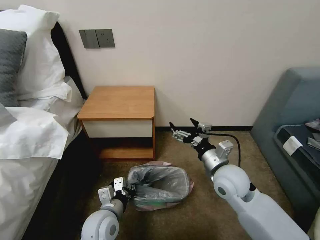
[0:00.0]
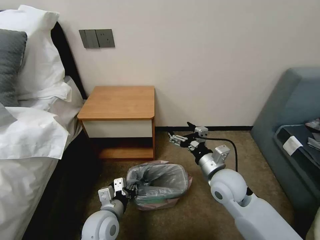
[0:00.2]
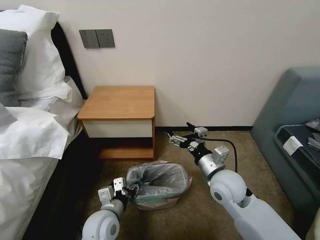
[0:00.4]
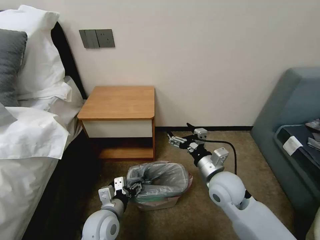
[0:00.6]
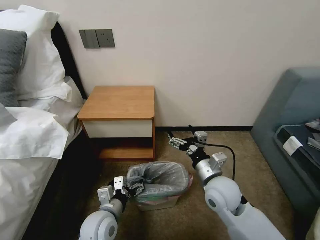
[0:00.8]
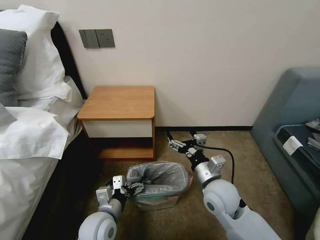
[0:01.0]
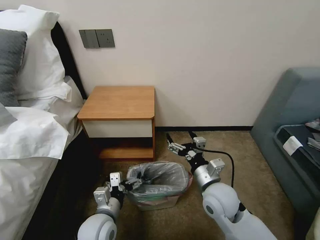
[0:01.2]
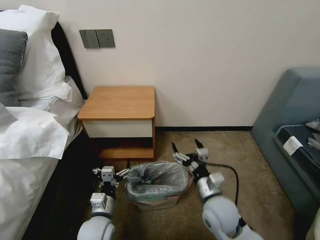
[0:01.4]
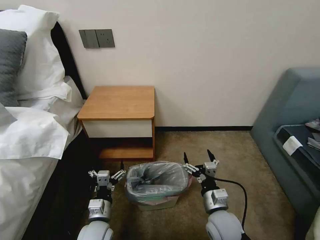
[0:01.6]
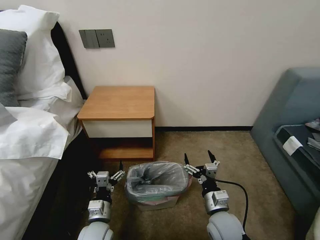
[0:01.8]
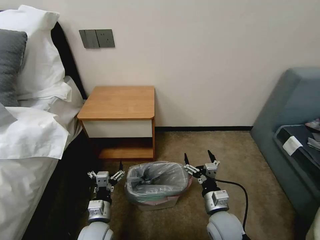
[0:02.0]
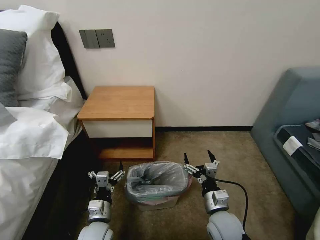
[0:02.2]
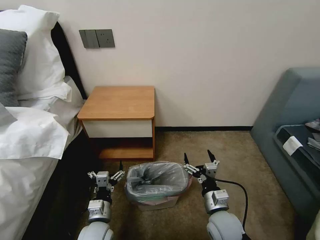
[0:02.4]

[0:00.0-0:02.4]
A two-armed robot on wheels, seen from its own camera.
Task of the whole recording: Pick up the garbage bag from the table and place it over the trash can.
0:00.0 to 0:01.2: The left gripper opens its fingers, while the right gripper moves approximately 5 cm.
0:01.2 to 0:02.4: The right gripper is displaced downward and backward by approximately 10 cm. The left gripper heads downward, covering approximately 5 cm.

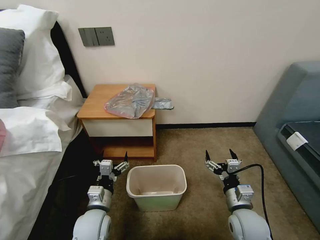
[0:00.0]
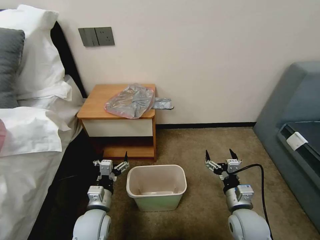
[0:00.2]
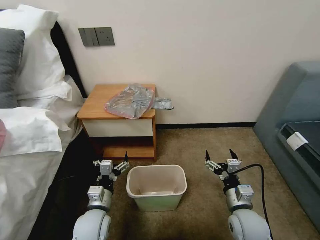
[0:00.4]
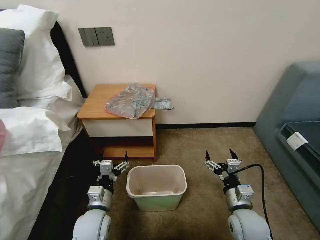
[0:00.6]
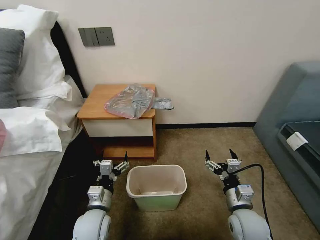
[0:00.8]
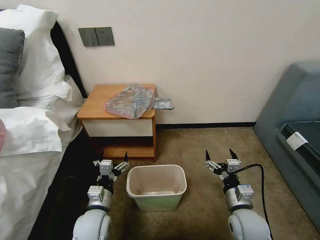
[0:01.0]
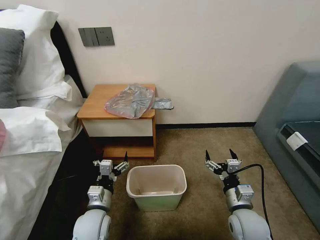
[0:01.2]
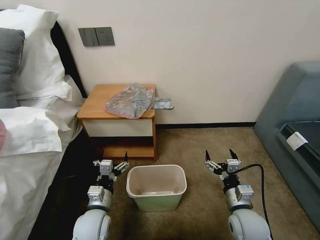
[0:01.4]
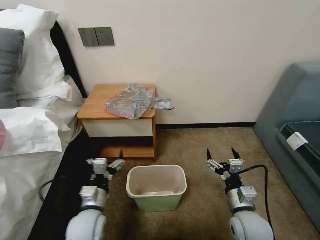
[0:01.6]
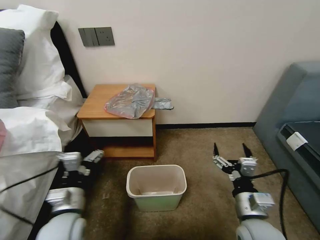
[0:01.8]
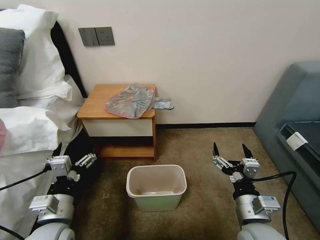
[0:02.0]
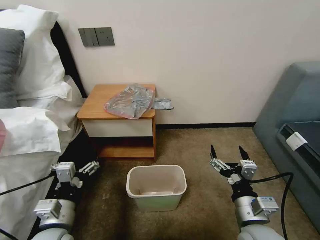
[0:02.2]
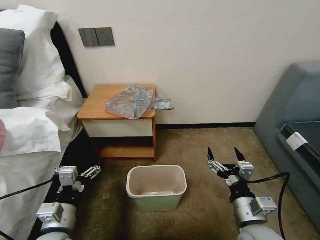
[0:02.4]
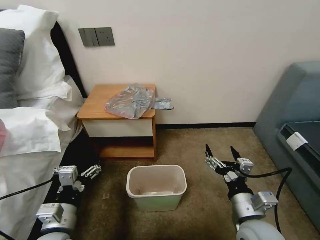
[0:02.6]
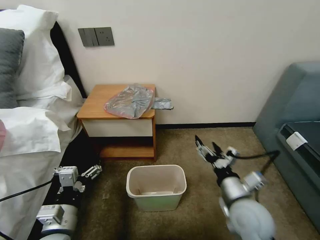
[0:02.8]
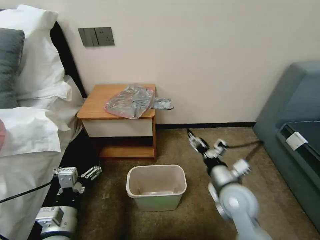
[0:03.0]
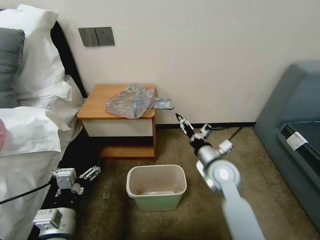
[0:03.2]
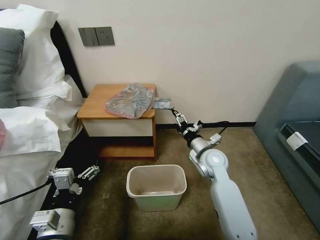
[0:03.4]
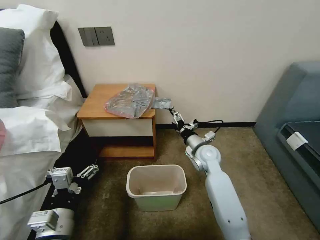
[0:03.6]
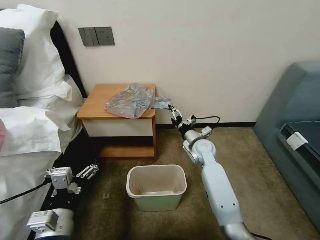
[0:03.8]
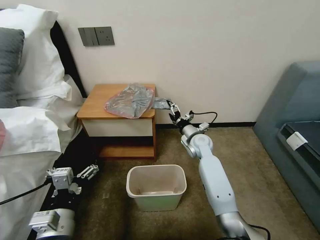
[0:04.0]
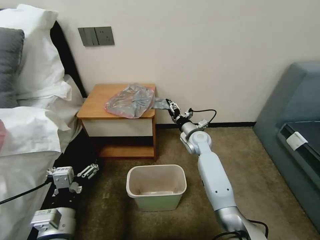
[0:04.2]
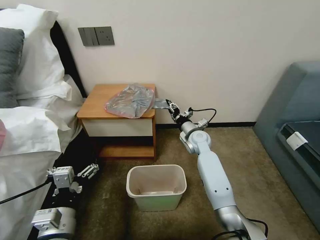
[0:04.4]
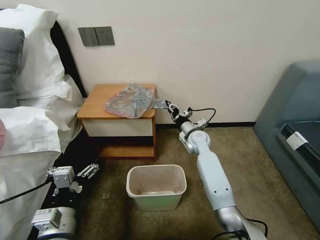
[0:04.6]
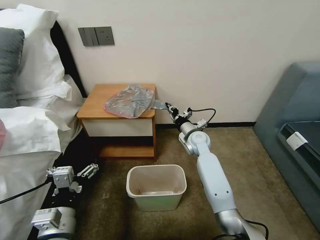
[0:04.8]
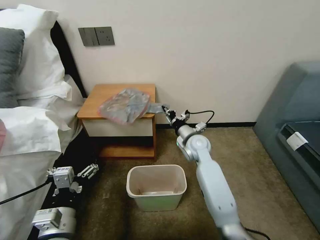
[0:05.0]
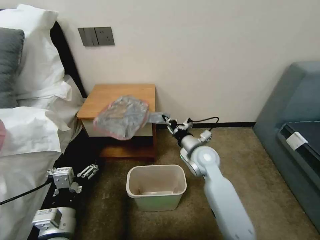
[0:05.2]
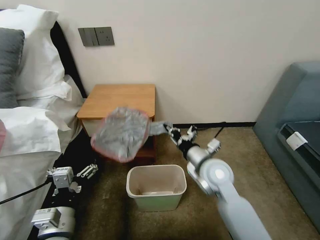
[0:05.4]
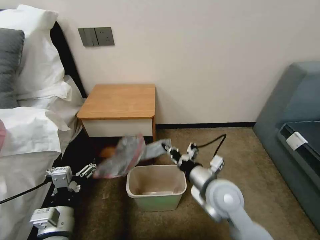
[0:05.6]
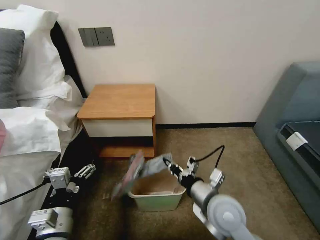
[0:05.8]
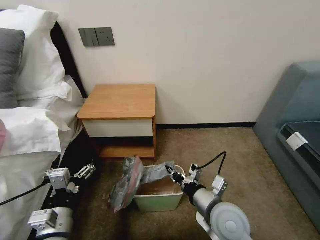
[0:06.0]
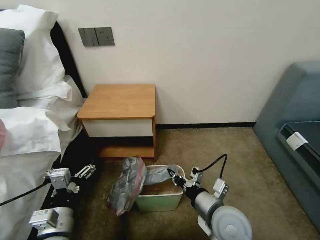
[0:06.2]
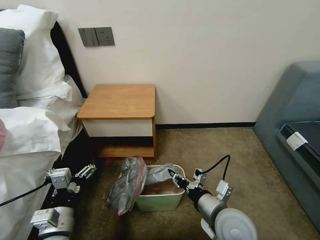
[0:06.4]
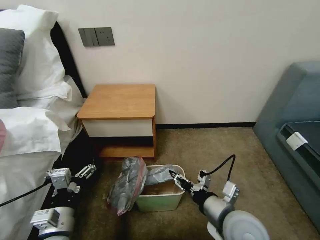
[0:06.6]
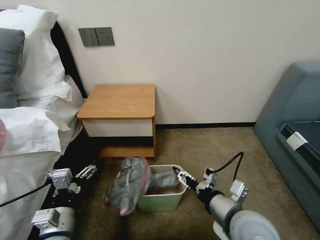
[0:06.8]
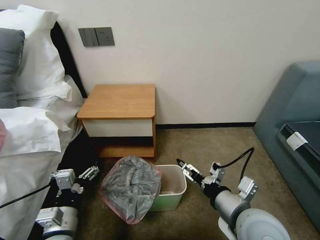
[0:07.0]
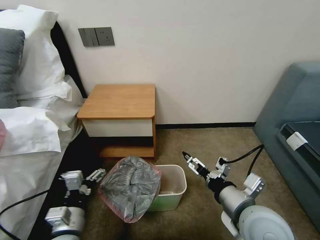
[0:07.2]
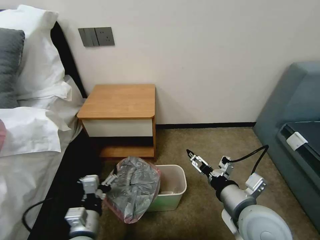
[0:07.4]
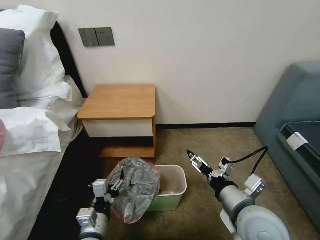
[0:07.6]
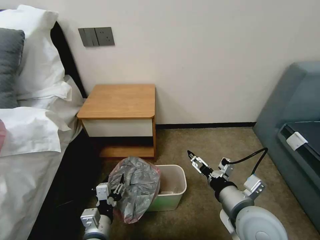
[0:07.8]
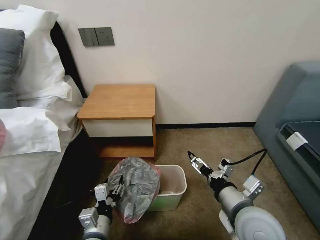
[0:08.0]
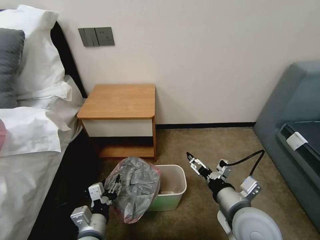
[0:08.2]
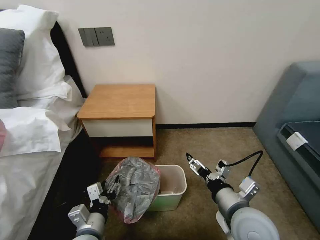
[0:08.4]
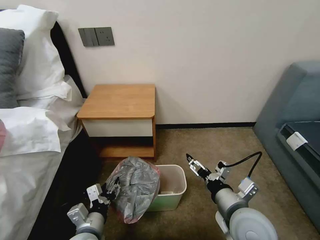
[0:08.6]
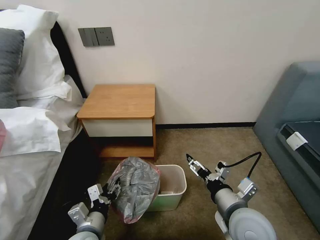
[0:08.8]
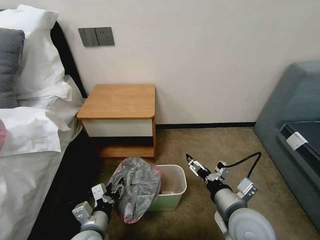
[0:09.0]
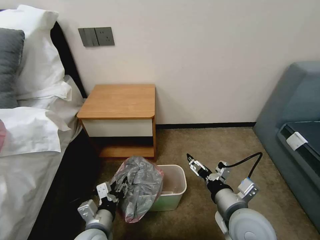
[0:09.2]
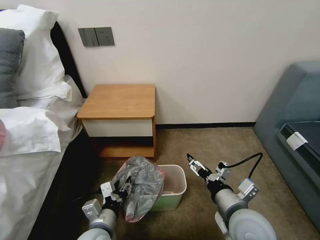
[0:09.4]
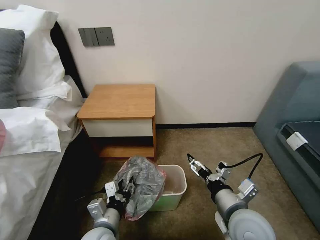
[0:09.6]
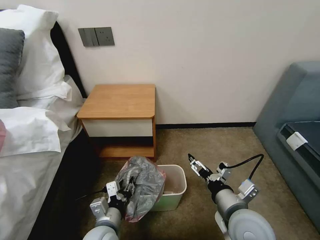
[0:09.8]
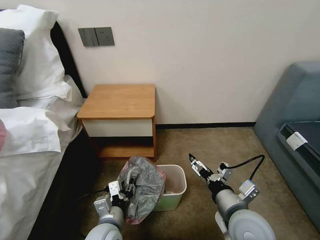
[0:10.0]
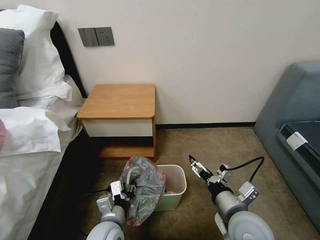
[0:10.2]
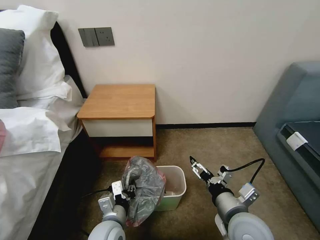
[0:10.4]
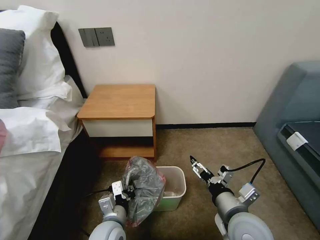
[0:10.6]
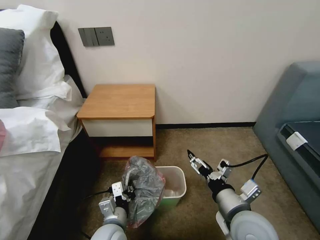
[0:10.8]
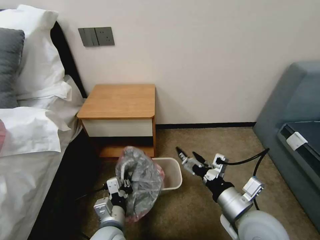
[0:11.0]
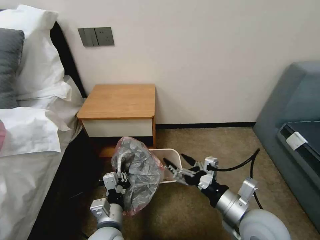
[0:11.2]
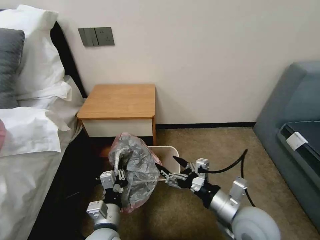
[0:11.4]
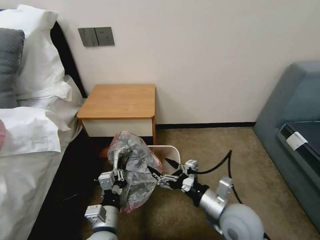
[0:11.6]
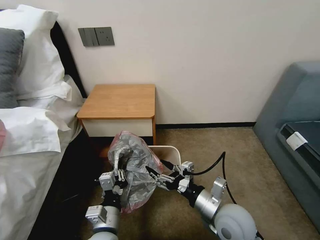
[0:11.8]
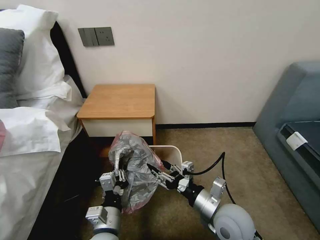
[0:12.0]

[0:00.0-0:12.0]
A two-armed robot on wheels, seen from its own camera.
Task of the whole recording: Pick up the garbage bag from the table and place it over the trash can.
0:01.6 to 0:03.0: The right gripper shifts some 10 cm forward and upward. The left gripper heads backward and upward, covering about 10 cm.
0:03.0 to 0:04.4: The right gripper travels forward by some 25 cm, and closes.
0:04.4 to 0:06.0: The right gripper moves backward, some 30 cm, and closes its fingers.
0:06.0 to 0:07.6: The right gripper moves upward, roughly 5 cm, and opens its fingers, while the left gripper heads to the right and downward, covering about 10 cm.
0:09.0 to 0:10.4: The left gripper heads to the right, covering approximately 5 cm.
0:10.4 to 0:12.0: The right gripper closes up.

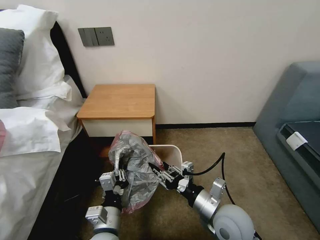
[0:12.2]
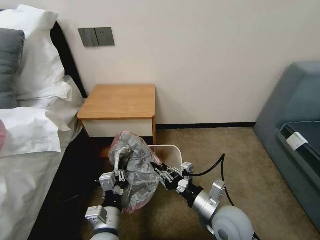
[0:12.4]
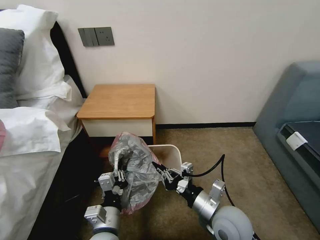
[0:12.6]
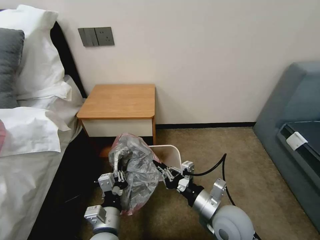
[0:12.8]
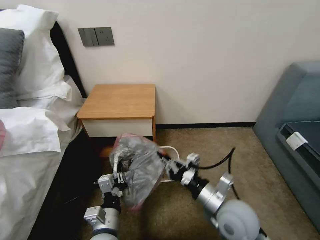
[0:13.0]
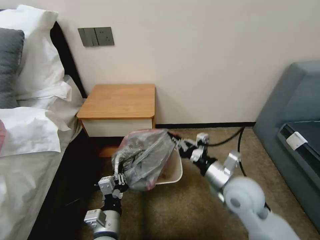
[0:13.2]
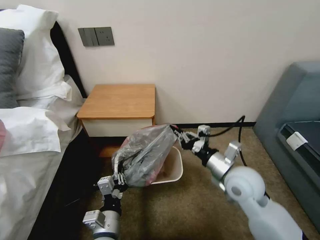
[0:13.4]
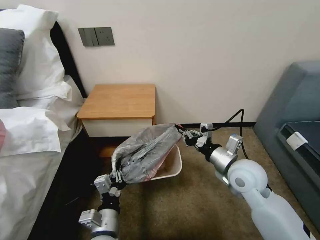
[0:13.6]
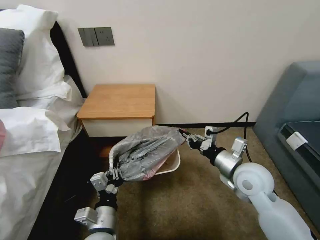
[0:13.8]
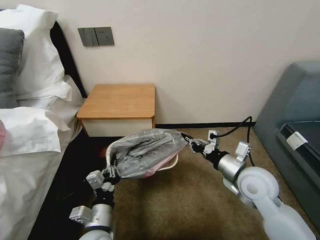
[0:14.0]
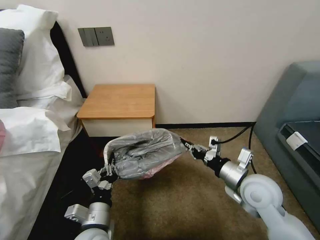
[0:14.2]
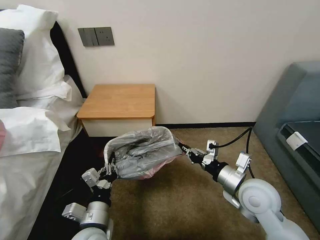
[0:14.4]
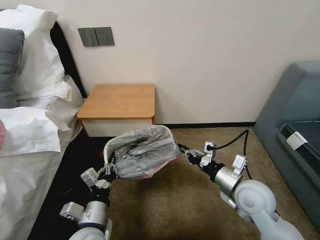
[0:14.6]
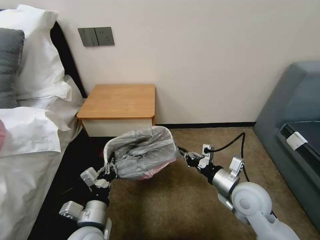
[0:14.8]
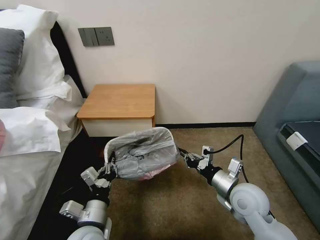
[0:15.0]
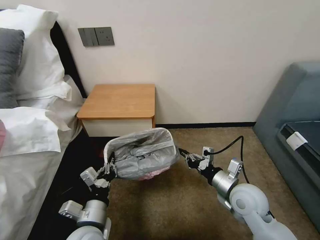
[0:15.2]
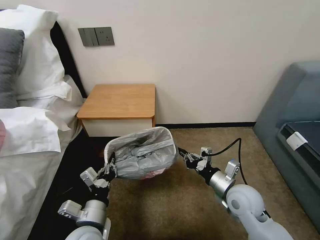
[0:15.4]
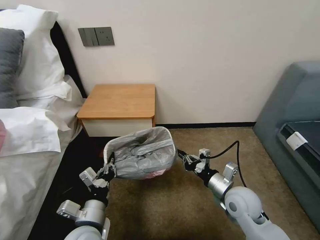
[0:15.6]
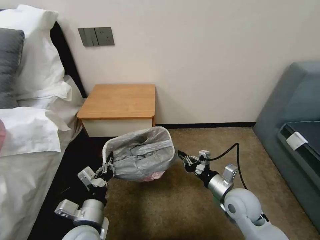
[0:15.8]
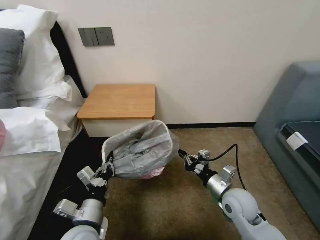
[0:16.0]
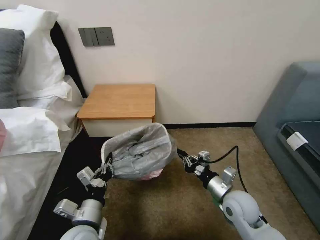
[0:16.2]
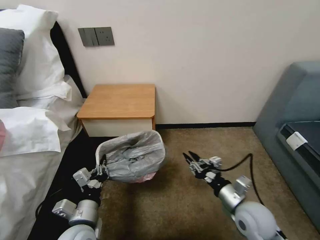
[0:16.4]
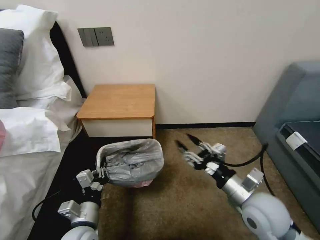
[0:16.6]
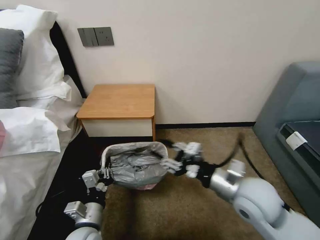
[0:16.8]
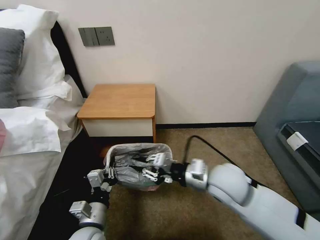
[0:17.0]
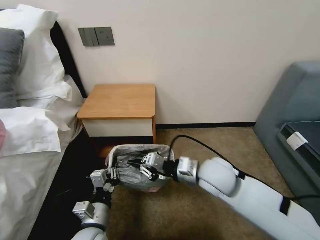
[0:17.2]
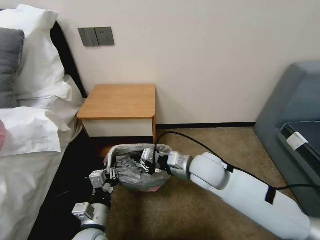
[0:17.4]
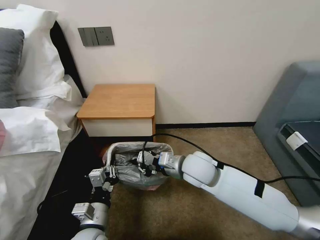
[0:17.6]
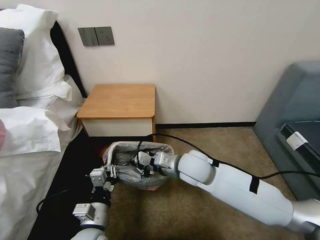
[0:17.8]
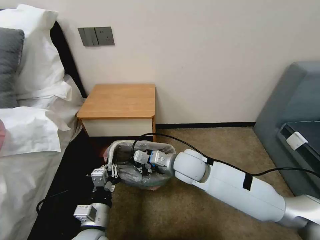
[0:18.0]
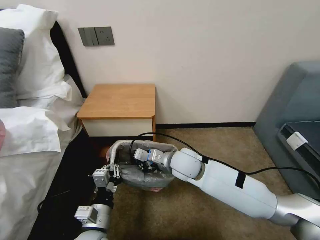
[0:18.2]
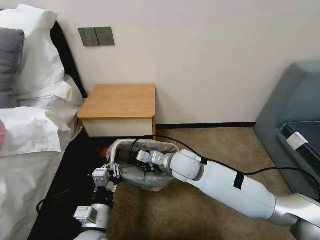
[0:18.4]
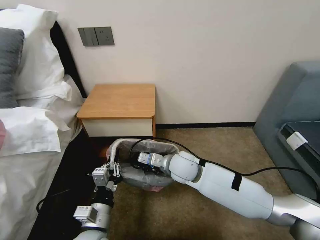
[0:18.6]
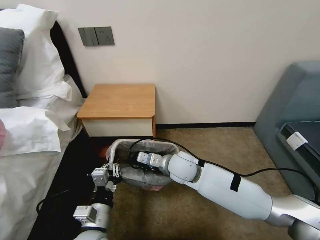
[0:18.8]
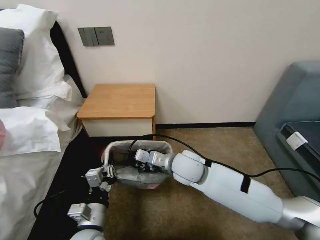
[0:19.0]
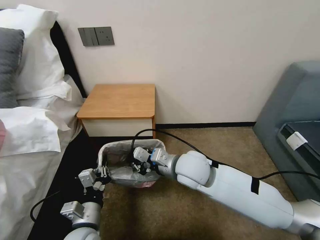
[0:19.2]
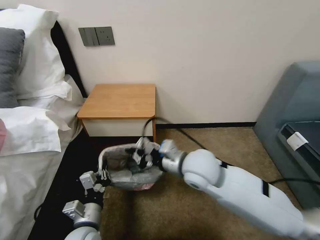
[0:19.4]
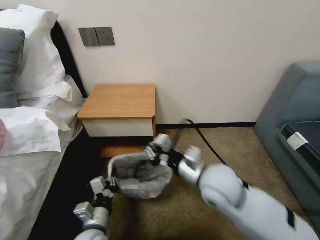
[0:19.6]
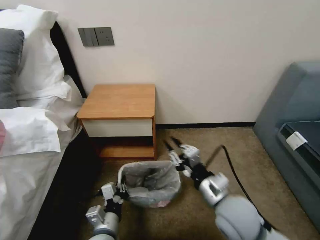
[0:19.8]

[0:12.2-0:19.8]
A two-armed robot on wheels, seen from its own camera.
Task of the whole recording: Pick up the garbage bag from the table and place it over the trash can.
0:12.2 to 0:13.8: The right gripper is displaced forward, to the right and upward by some 15 cm, and closes its fingers.
0:13.8 to 0:15.2: The right gripper moves downward, some 5 cm.
0:15.2 to 0:16.8: The right gripper shifts about 10 cm upward, and opens its fingers.
0:16.8 to 0:18.2: The right gripper is displaced to the left and forward by approximately 20 cm, and closes up.
0:18.2 to 0:19.8: The right gripper goes about 20 cm backward and to the right.
